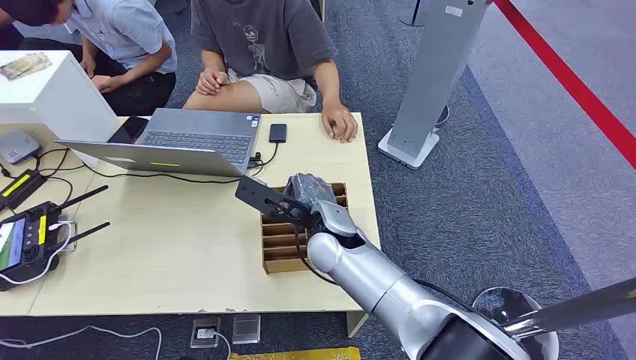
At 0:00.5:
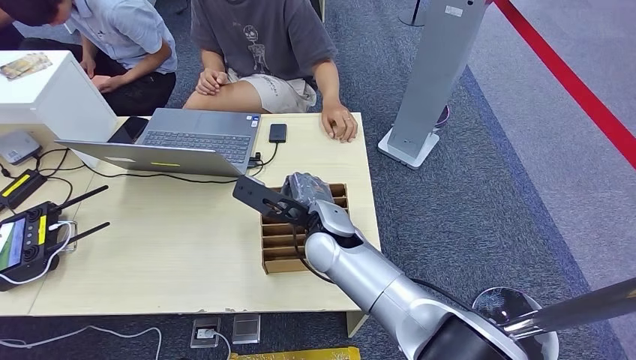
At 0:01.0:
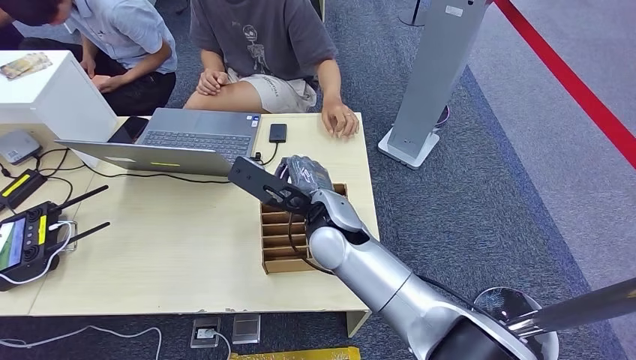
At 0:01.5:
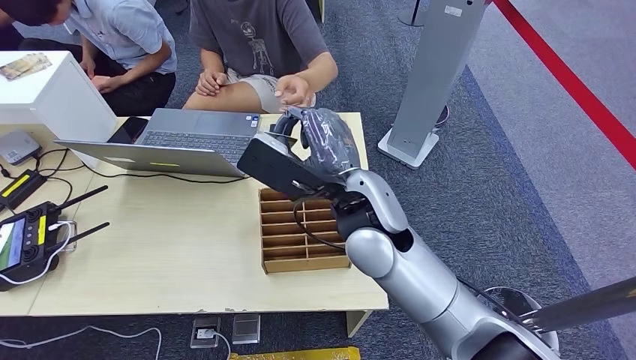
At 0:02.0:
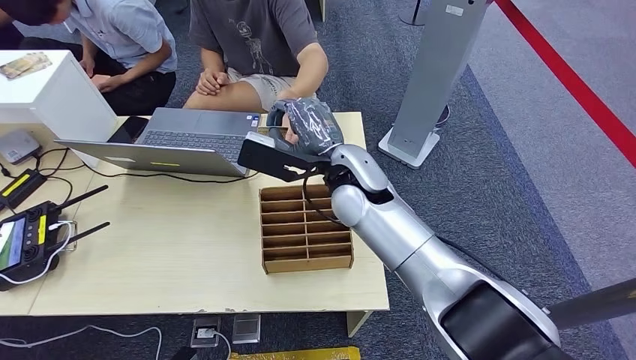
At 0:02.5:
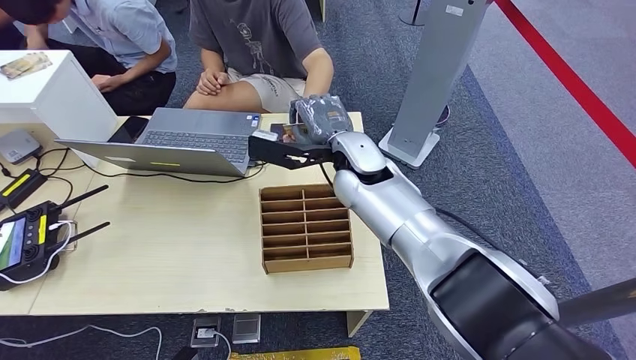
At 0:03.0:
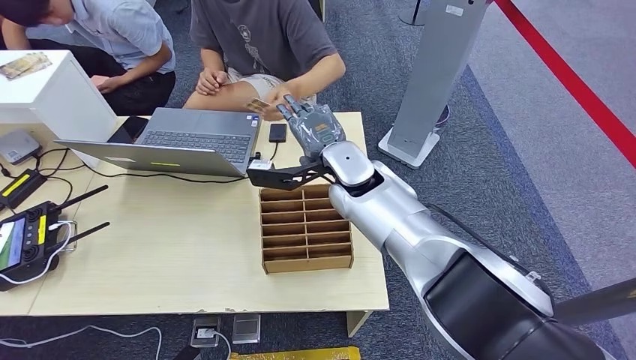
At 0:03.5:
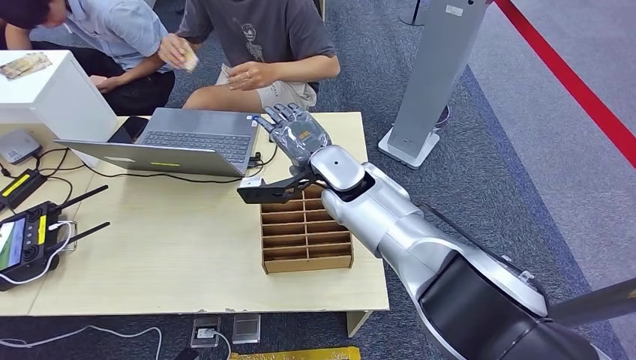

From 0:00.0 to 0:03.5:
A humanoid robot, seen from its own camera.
Step, from 0:00.0 to 0:01.0: Pick up the room card from the card holder.
Step, from 0:01.5 to 0:03.5: Hand the room card to the target.
